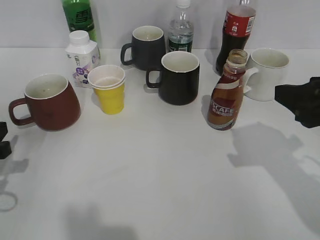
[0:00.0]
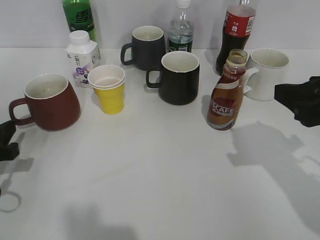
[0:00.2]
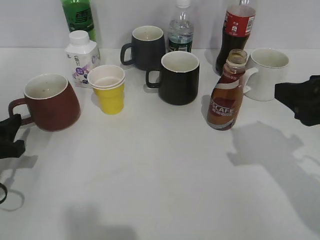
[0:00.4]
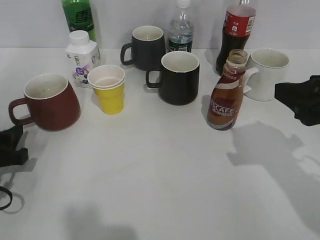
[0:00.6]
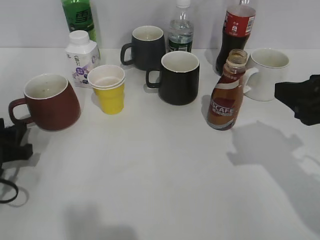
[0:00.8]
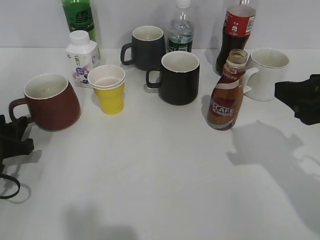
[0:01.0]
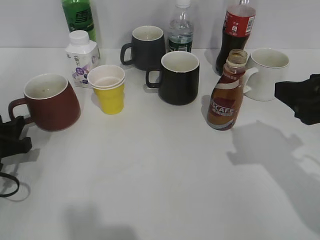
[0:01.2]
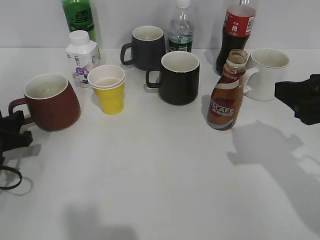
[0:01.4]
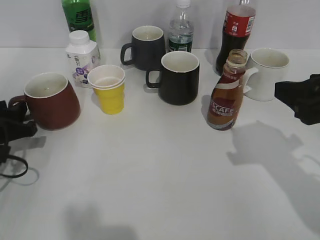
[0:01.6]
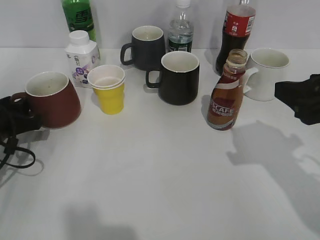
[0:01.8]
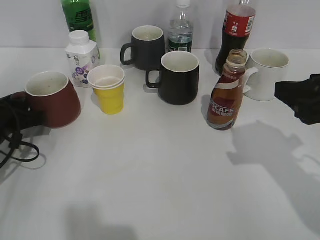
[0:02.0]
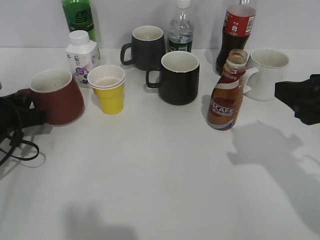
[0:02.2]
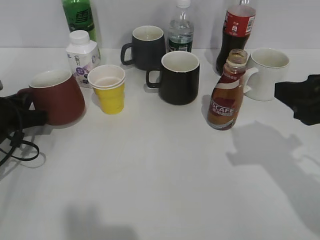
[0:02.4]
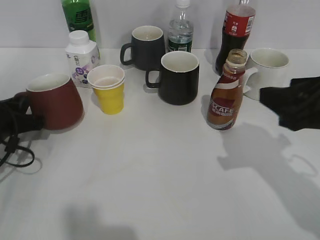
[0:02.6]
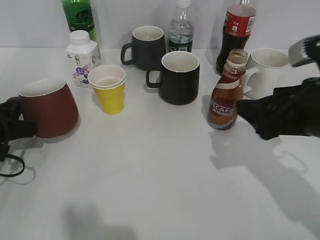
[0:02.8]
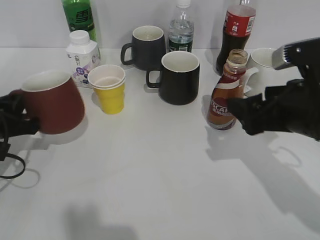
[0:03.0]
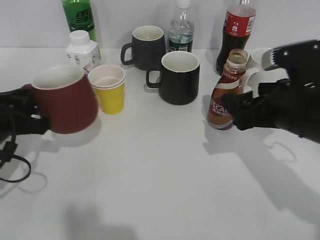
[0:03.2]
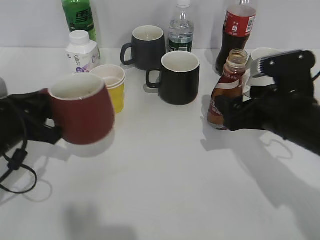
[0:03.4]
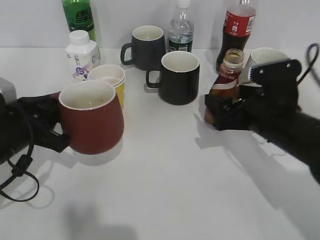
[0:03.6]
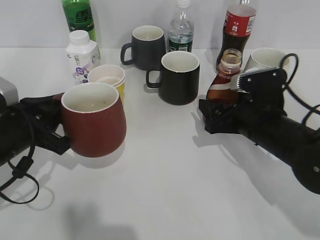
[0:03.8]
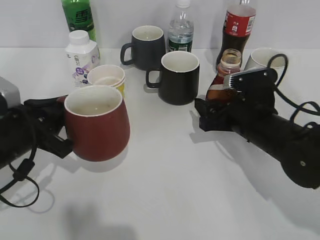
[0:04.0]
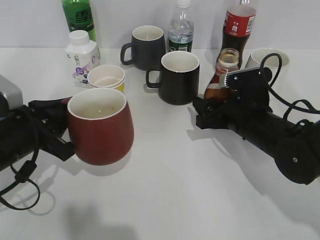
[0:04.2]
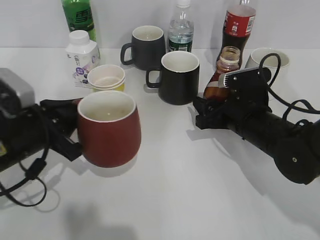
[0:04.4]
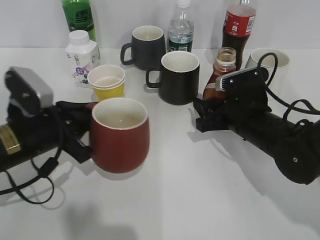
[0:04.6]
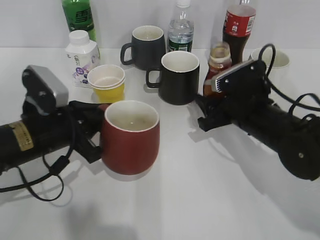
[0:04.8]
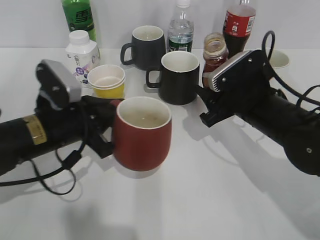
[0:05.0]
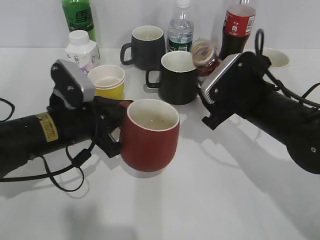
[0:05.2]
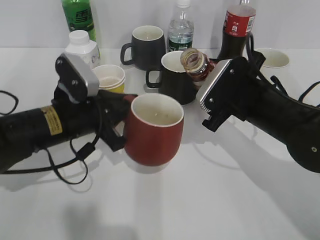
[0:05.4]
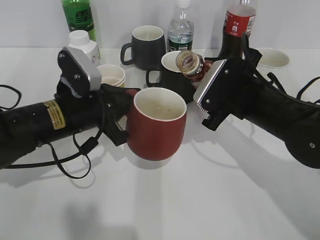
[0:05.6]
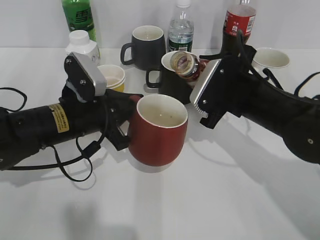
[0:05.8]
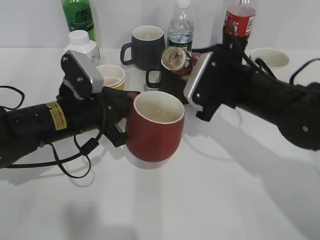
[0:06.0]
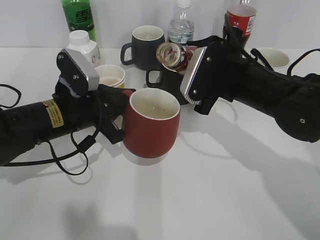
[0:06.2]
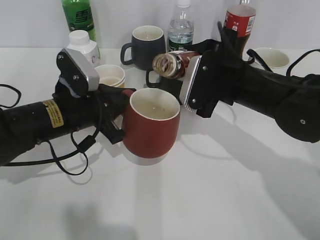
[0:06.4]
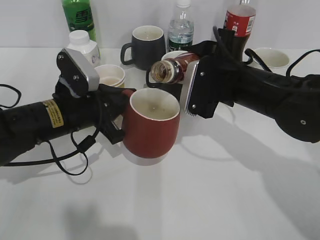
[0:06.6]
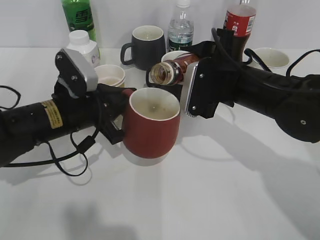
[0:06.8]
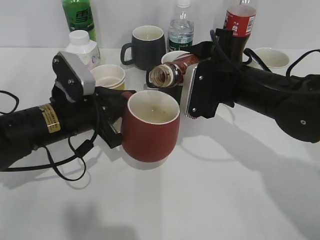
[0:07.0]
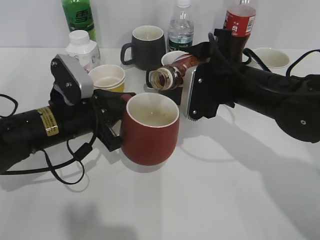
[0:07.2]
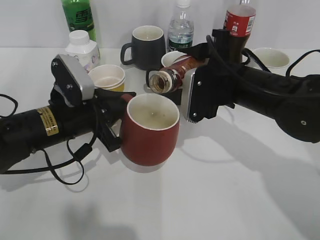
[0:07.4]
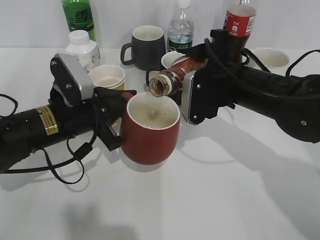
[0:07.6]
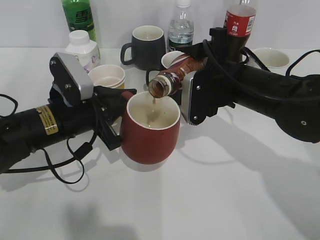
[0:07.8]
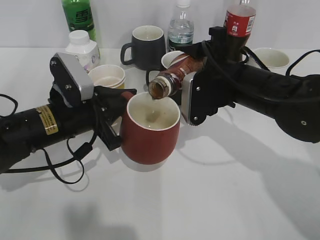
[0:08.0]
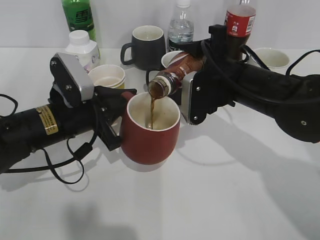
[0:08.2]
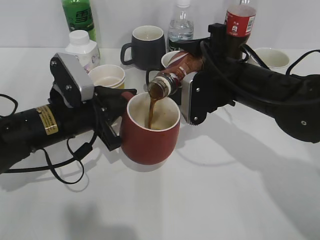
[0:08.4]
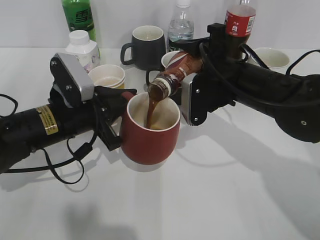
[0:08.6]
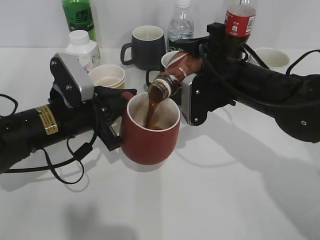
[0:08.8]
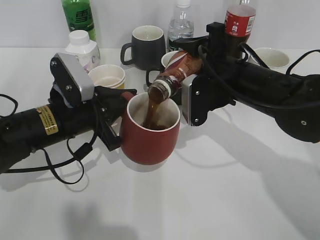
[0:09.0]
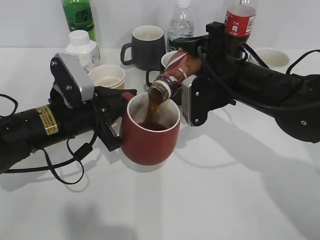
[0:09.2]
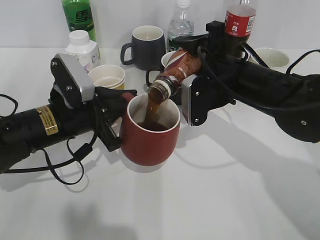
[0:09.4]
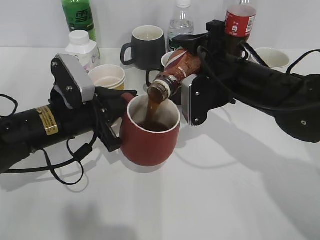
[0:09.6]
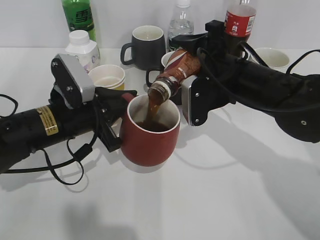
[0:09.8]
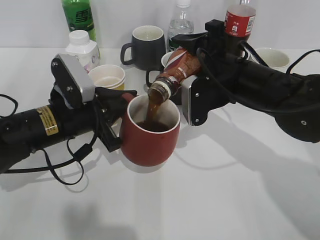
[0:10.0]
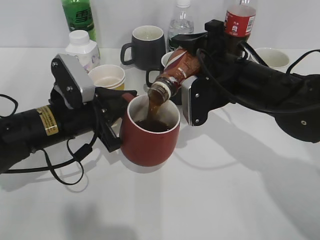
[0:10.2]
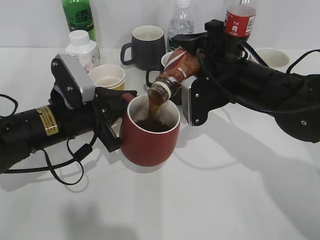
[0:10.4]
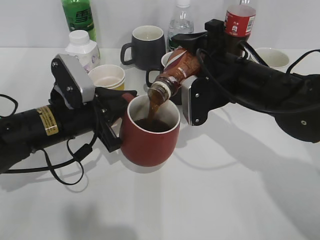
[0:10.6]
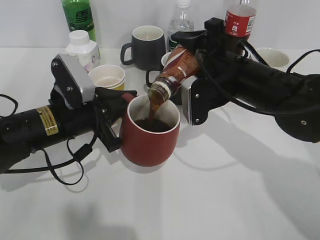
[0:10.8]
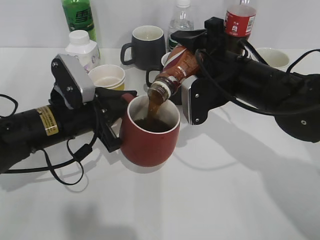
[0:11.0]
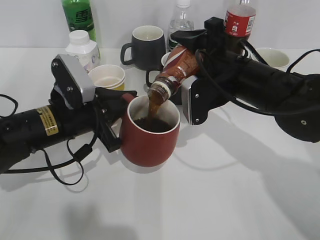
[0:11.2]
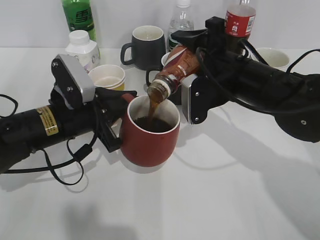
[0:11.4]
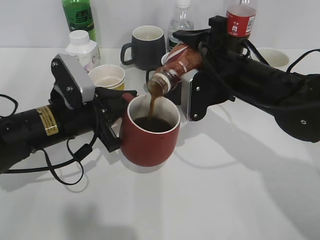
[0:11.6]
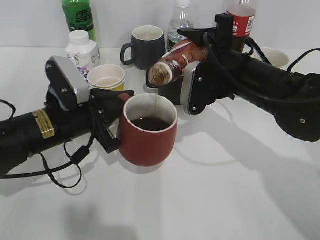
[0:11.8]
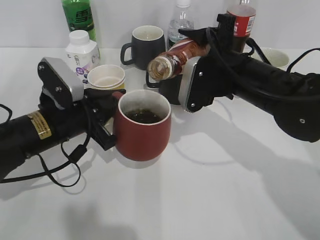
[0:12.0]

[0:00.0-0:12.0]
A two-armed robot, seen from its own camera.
Step, 0:00.0 to 0:02.2: Grasp the red cup with left gripper.
Step, 0:02.6 to 0:04.6: Grasp the bottle with coffee with right gripper.
0:00.0 to 0:01.6: The left gripper heads forward, covering about 5 cm.
0:01.6 to 0:03.0: The left gripper closes. Meanwhile the right gripper changes place by roughly 5 cm, and opens up.
0:03.0 to 0:04.4: The right gripper moves downward and forward, some 10 cm, and closes, while the left gripper shifts approximately 5 cm to the right.
0:04.4 to 0:06.0: The left gripper shifts about 10 cm to the right and forward, while the right gripper is displaced upward by roughly 5 cm.
0:07.6 to 0:09.0: The grippers move only a little.
0:09.0 to 0:10.4: Both grippers stay put.
0:10.4 to 0:12.0: There are only small adjustments of the grippers.

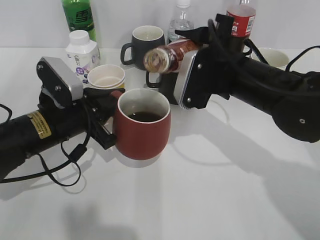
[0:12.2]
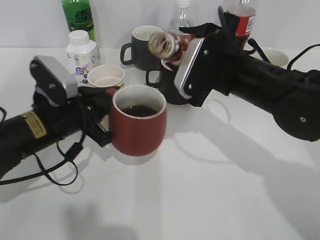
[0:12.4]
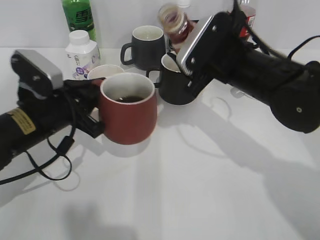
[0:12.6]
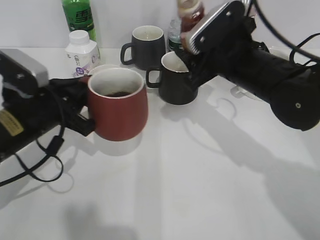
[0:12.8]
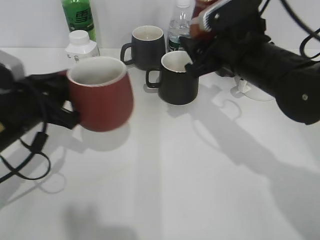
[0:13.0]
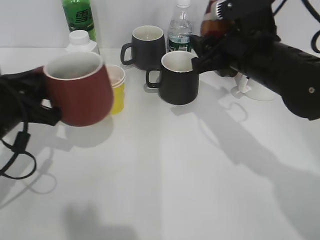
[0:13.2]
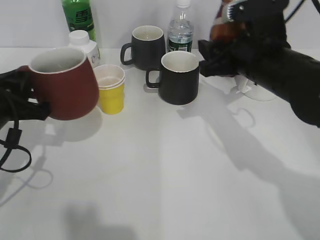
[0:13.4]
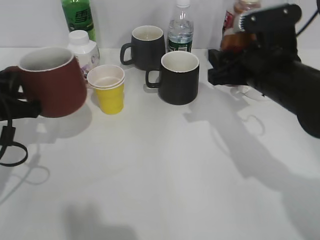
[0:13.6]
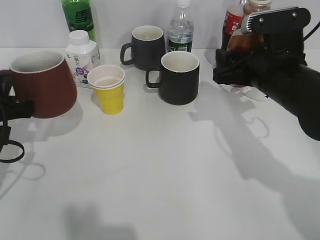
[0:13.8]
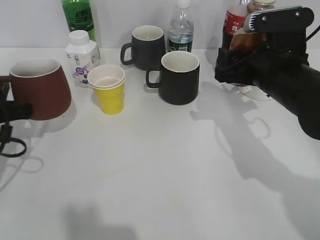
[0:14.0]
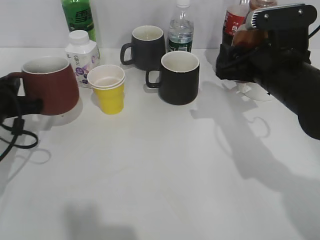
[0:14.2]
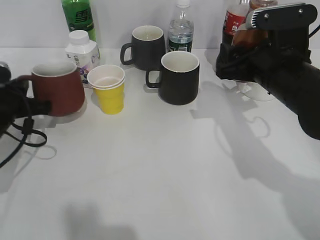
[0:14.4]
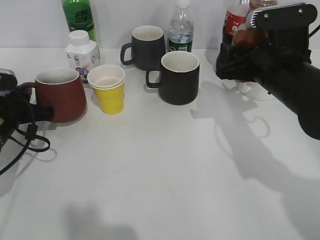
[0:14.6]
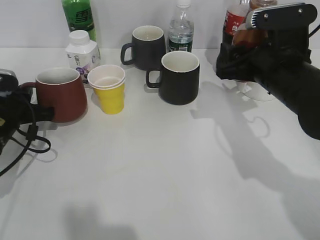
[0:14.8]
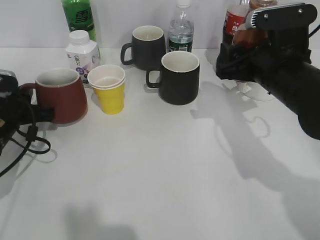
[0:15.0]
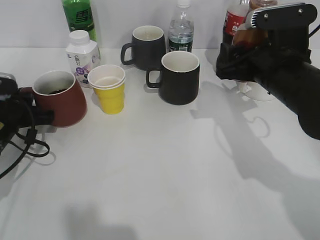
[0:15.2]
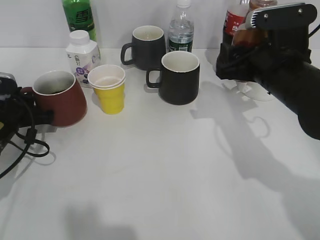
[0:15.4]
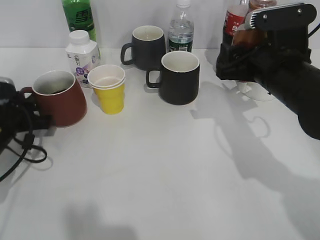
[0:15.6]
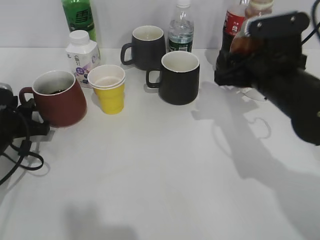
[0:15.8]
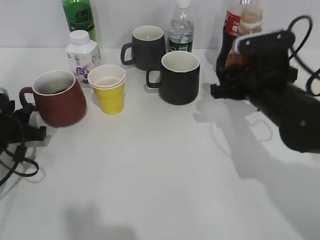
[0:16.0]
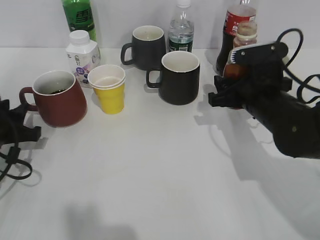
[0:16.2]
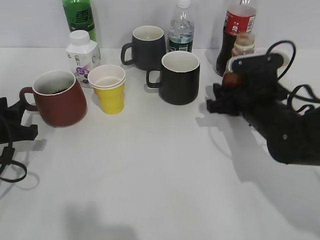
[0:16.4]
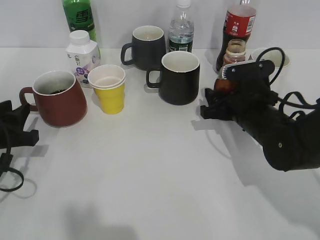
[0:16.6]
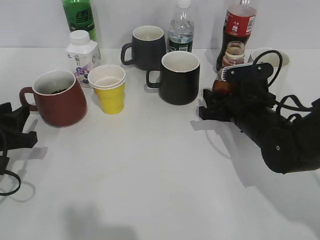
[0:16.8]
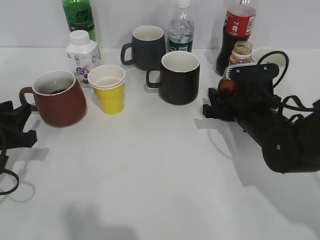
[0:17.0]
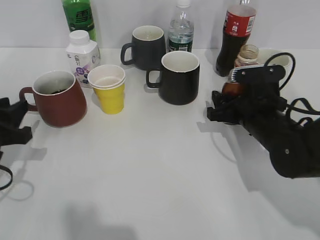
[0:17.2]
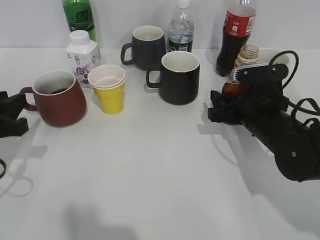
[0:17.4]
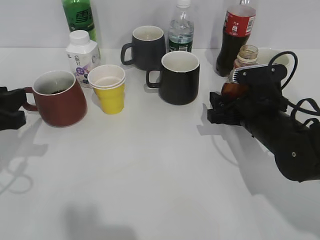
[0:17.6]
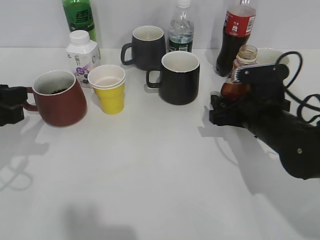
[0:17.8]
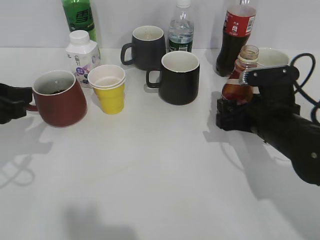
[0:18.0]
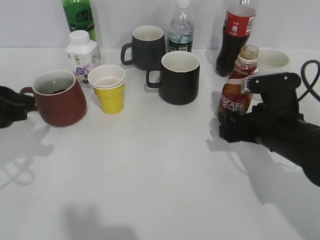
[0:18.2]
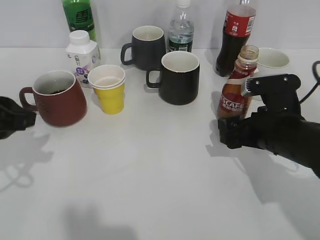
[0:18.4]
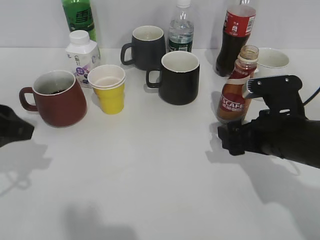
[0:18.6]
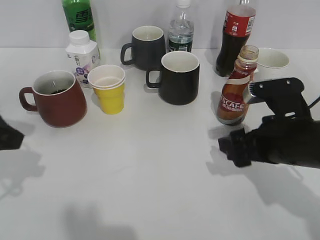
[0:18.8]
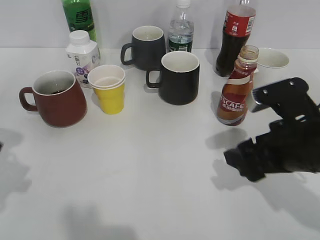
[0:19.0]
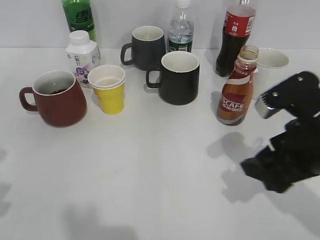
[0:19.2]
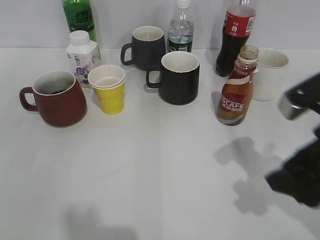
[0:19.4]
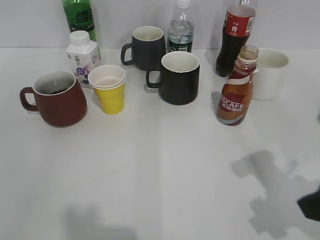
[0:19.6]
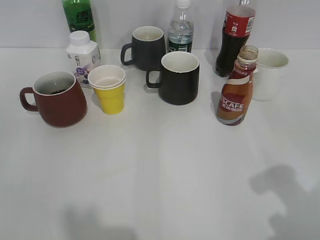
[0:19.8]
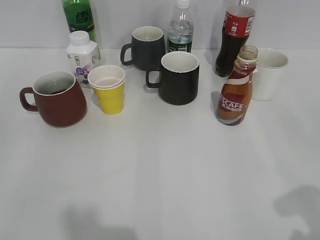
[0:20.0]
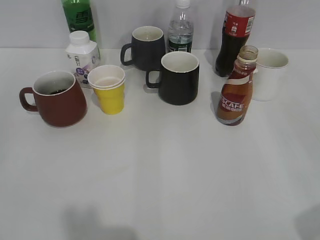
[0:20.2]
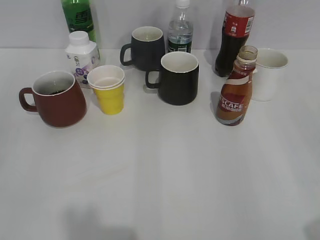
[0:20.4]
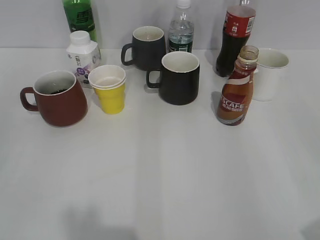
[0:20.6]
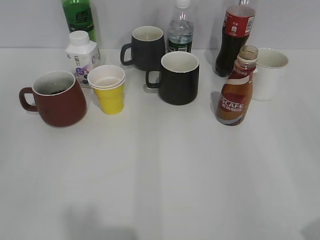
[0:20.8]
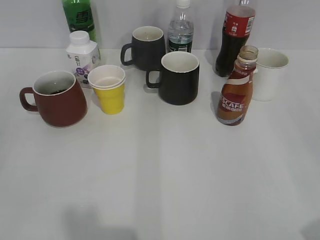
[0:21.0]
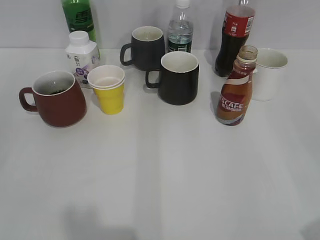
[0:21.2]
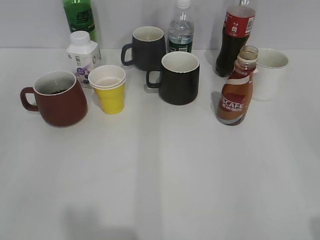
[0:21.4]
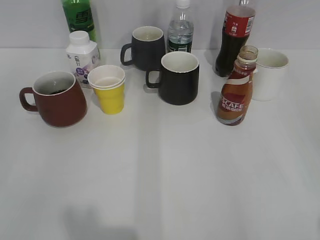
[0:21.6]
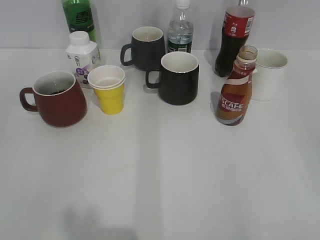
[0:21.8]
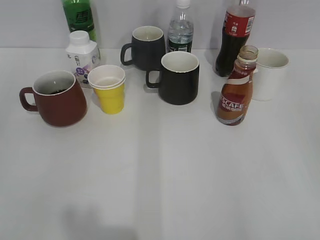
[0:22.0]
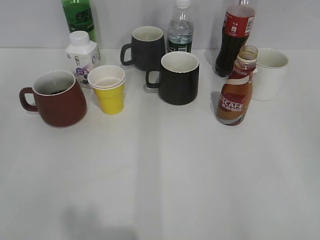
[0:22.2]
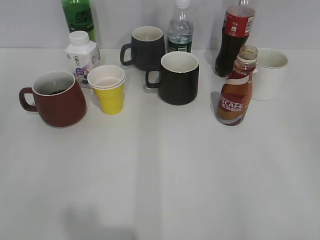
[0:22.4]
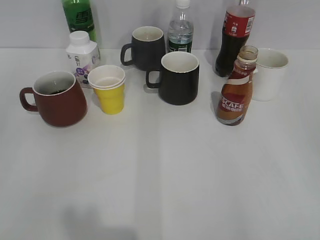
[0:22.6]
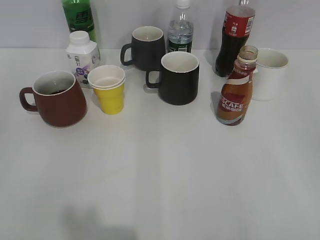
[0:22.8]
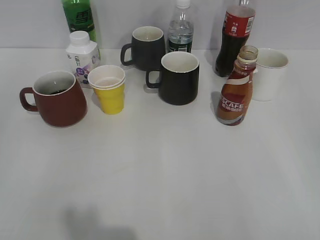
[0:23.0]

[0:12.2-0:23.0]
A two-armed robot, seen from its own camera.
Step, 0:12.4 to 0:15.8: Place the red cup on the table with left gripper.
Step, 0:16.0 to 0:18.2: Place the coffee bottle on the table with right gripper.
0:12.2 to 0:13.8: The right gripper goes about 5 cm to the right. Meanwhile the left gripper goes about 10 cm to the left.
0:13.8 to 0:15.2: The left gripper goes roughly 10 cm downward and forward.
0:15.2 to 0:16.8: The left gripper travels backward by about 5 cm, and opens its fingers. The right gripper travels downward by some 10 cm.
0:16.8 to 0:18.4: The right gripper moves backward, some 5 cm, and opens up. Meanwhile the left gripper heads upward, covering about 10 cm.
0:18.4 to 0:20.0: The right gripper goes roughly 25 cm backward, upward and to the right. The left gripper moves backward, approximately 20 cm.
